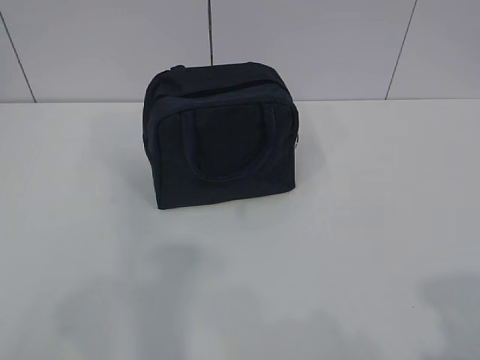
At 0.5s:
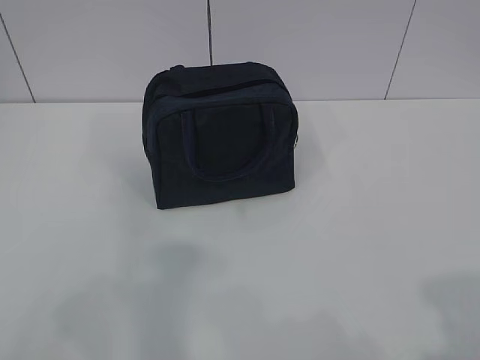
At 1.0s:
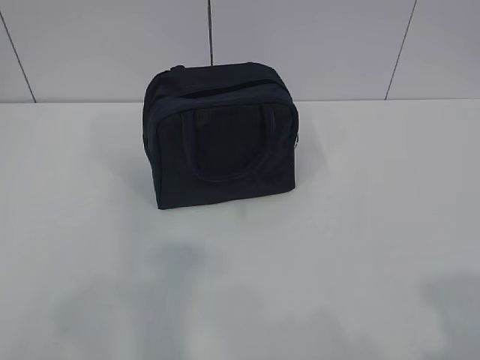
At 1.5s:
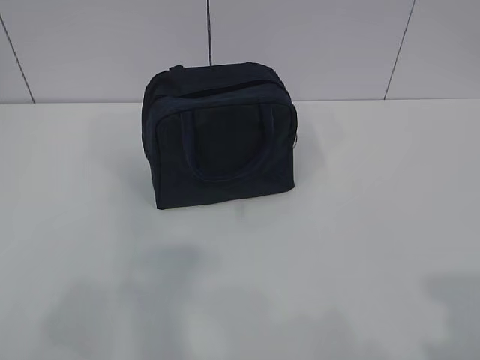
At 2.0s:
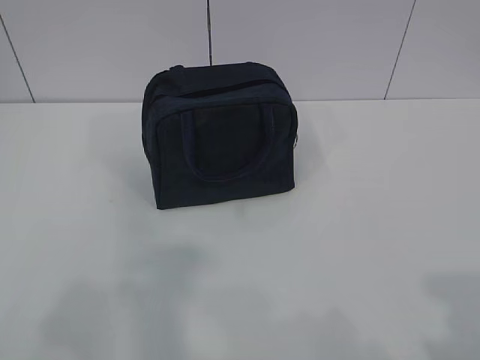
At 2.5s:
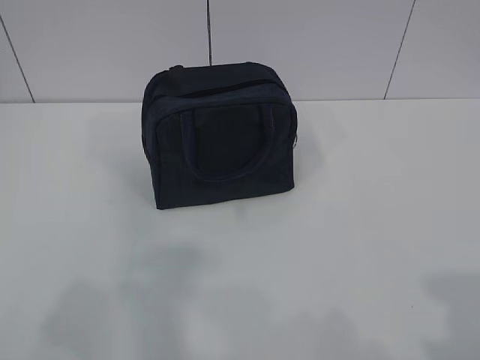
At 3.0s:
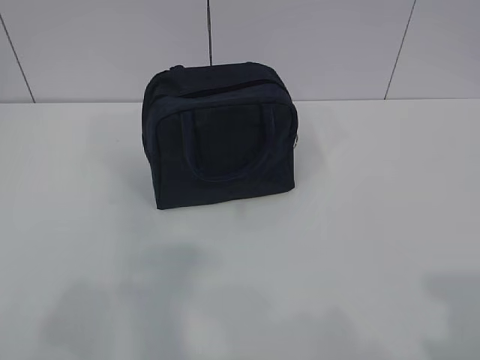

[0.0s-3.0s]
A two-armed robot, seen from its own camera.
1.5s to 3.0s: Both grippers stay about where they are.
